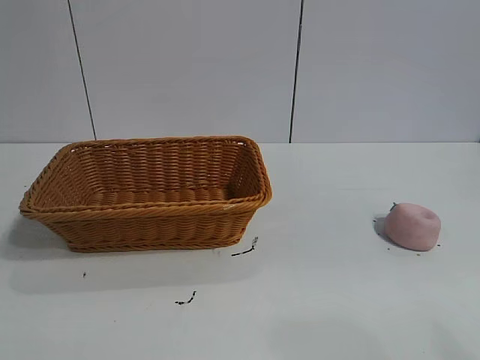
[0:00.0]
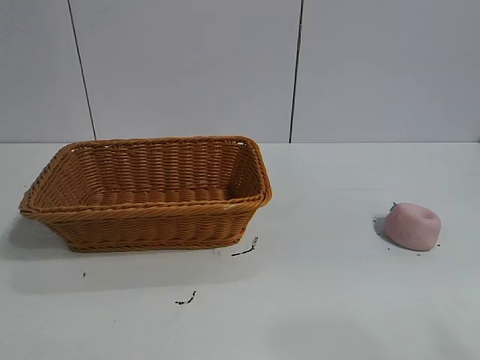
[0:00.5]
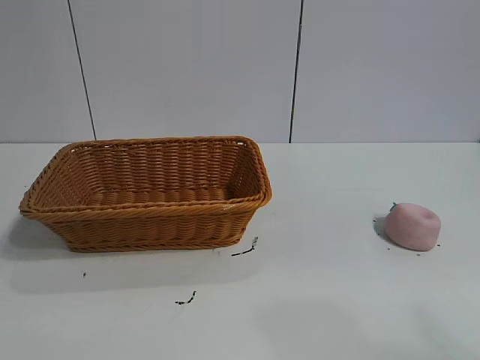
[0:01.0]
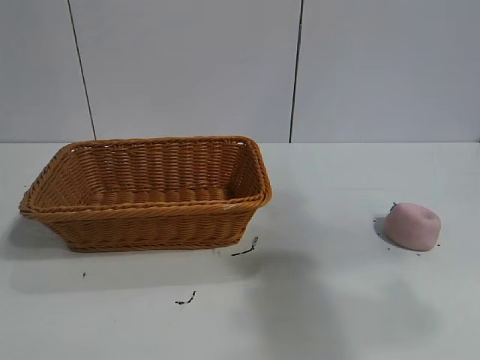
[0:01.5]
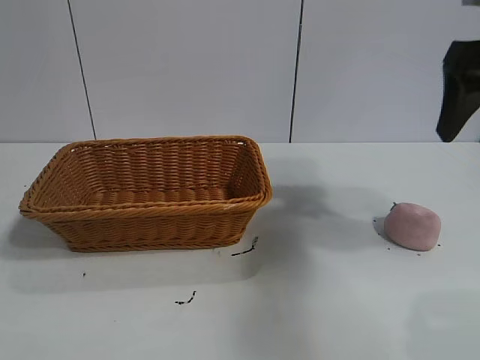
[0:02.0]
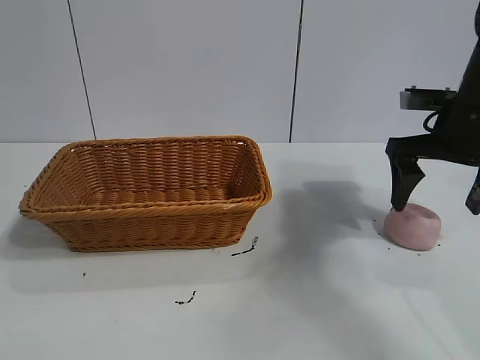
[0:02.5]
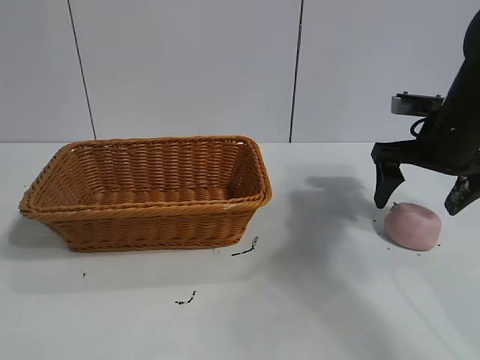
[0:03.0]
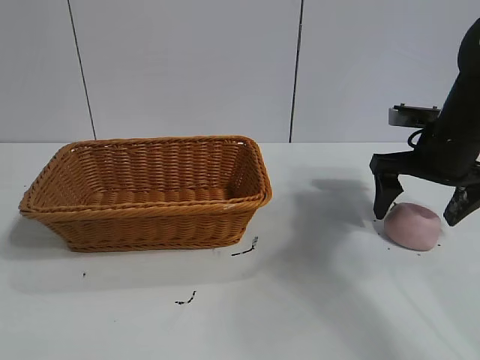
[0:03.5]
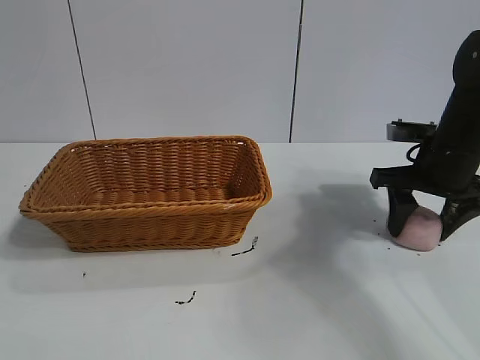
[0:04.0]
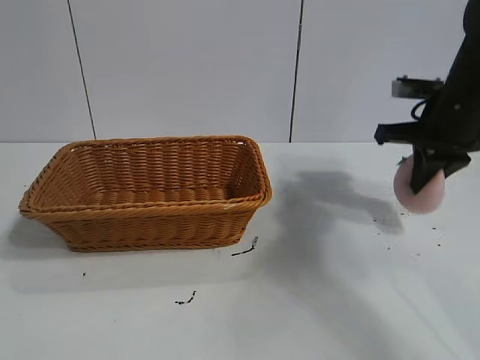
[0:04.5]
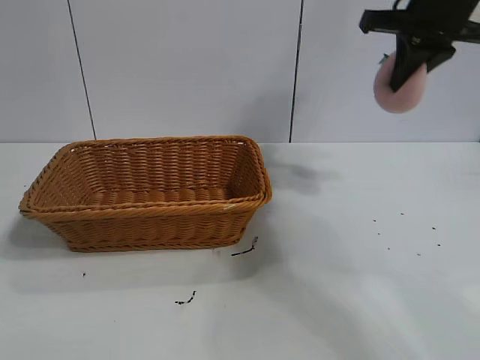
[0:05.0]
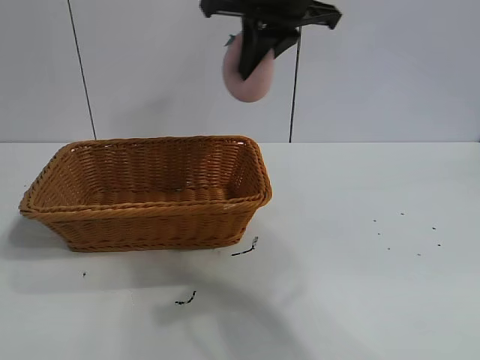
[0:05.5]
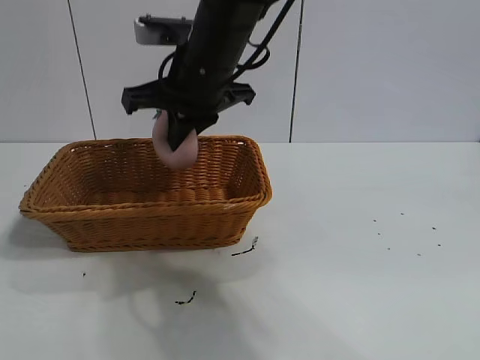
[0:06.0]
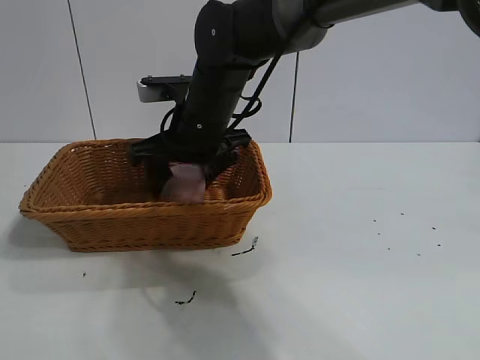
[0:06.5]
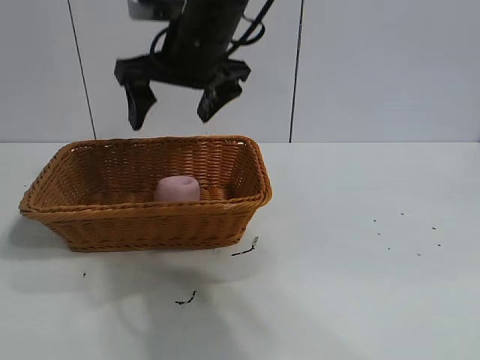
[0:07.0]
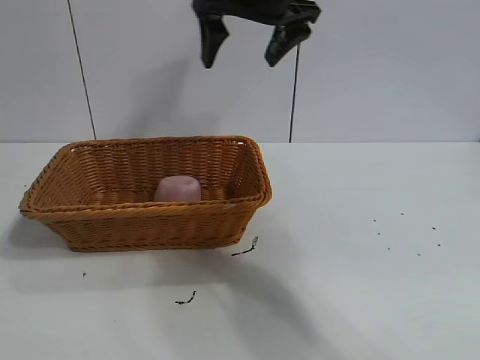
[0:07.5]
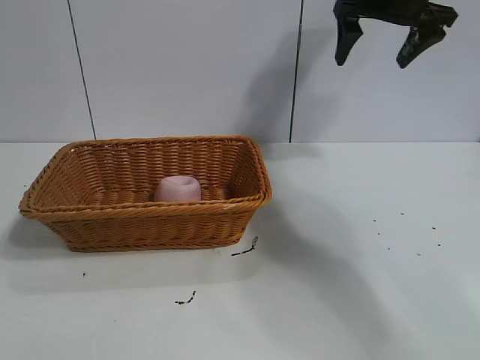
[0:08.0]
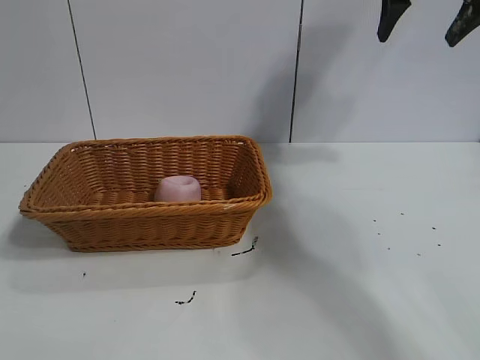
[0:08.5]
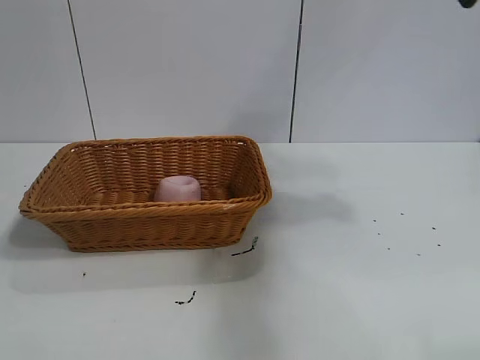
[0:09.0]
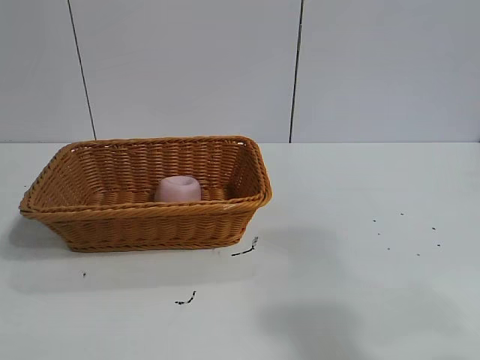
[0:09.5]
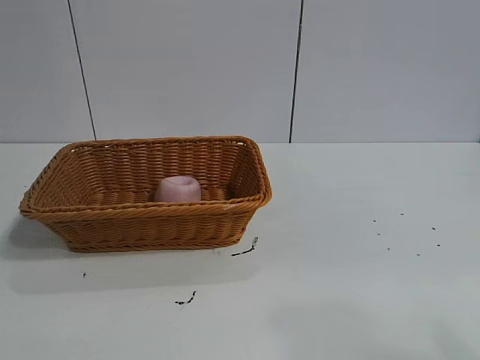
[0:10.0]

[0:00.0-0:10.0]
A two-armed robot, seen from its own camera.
Task of the whole recording: pick up the peach and put it into the basket.
Step, 0:01.0 to 0:04.0: Grasp the peach with right gripper.
Step, 0:04.5 to 0:06.5: Place the peach in the basket with right gripper.
